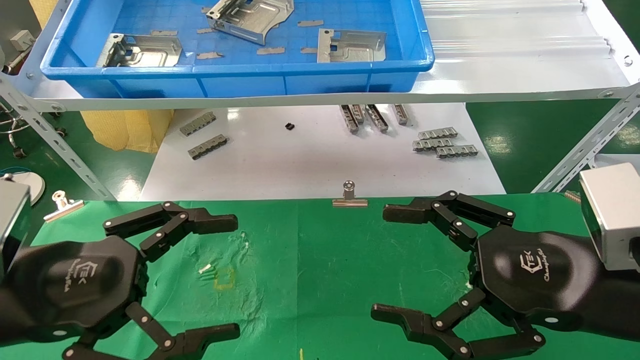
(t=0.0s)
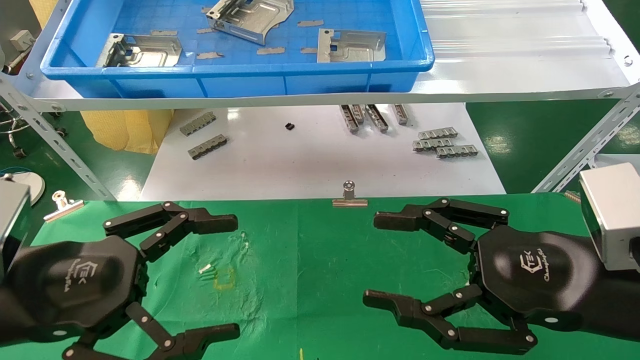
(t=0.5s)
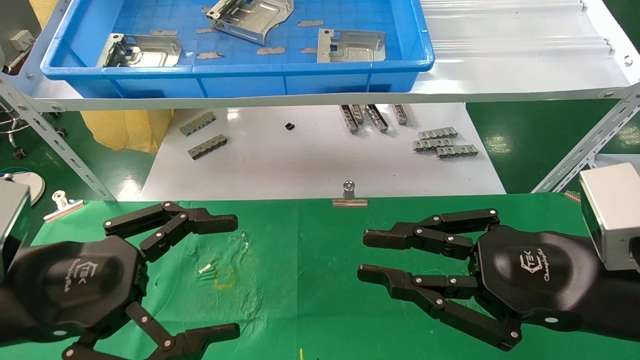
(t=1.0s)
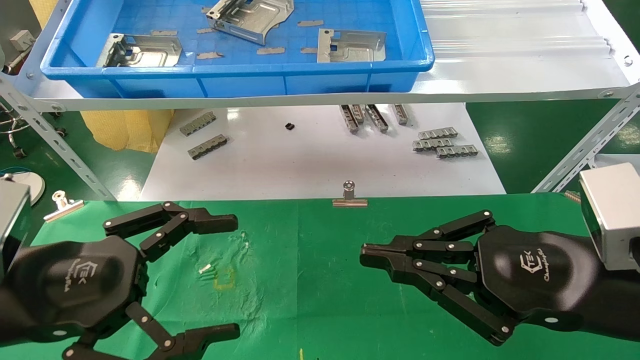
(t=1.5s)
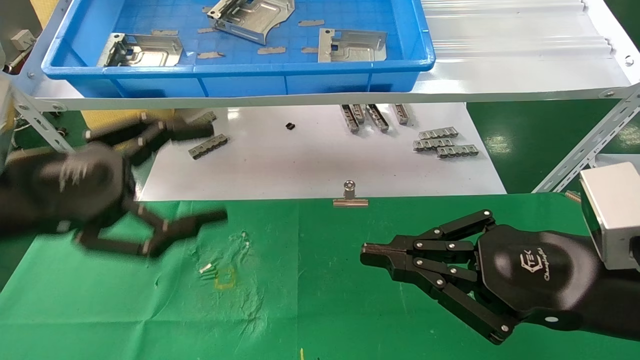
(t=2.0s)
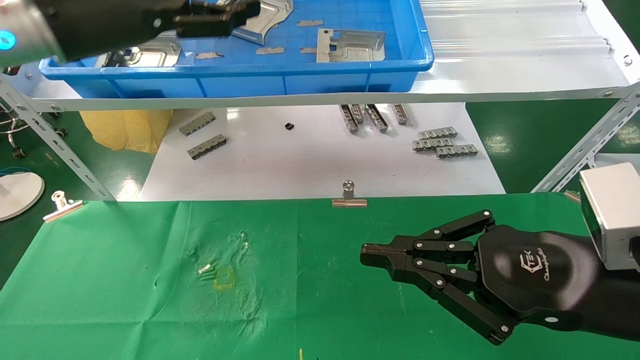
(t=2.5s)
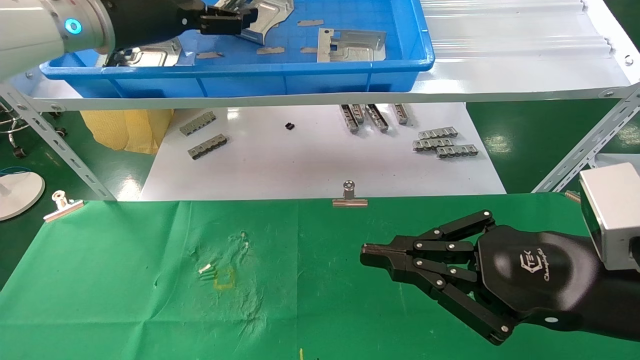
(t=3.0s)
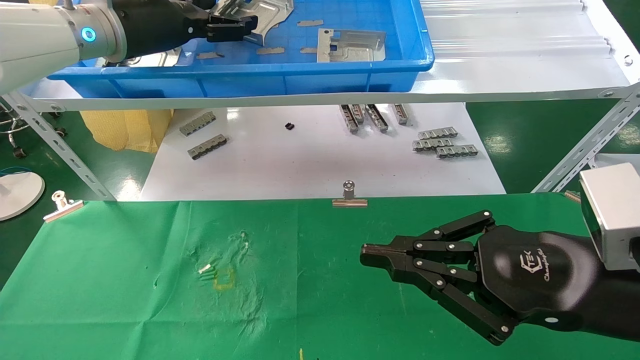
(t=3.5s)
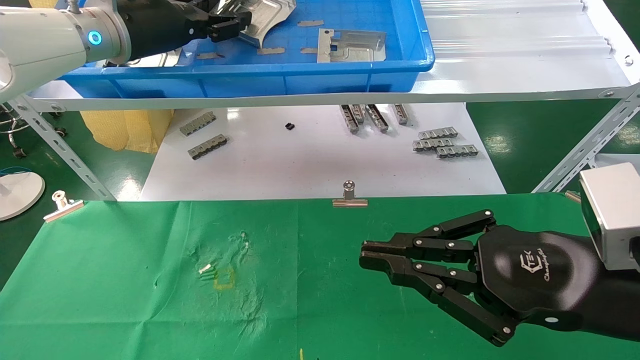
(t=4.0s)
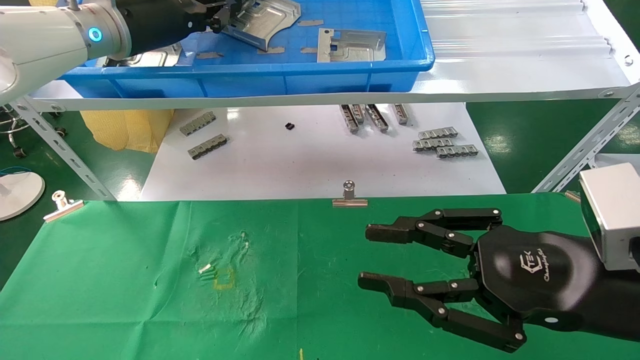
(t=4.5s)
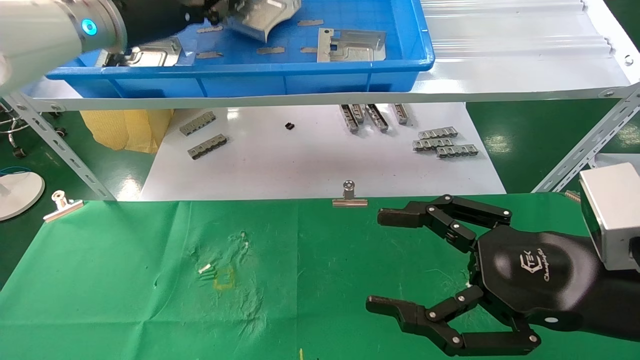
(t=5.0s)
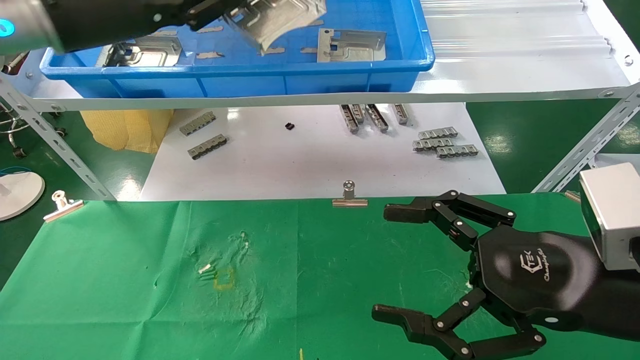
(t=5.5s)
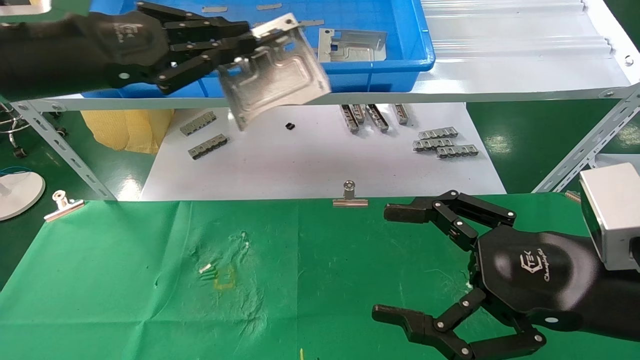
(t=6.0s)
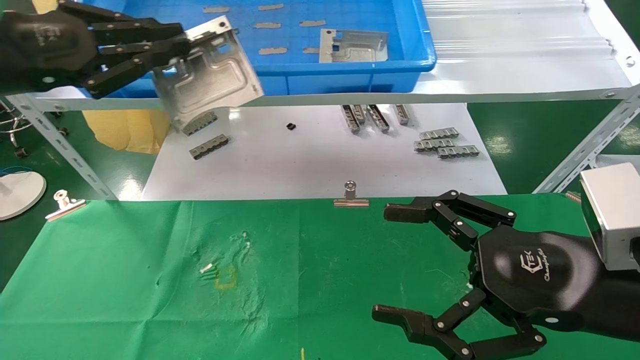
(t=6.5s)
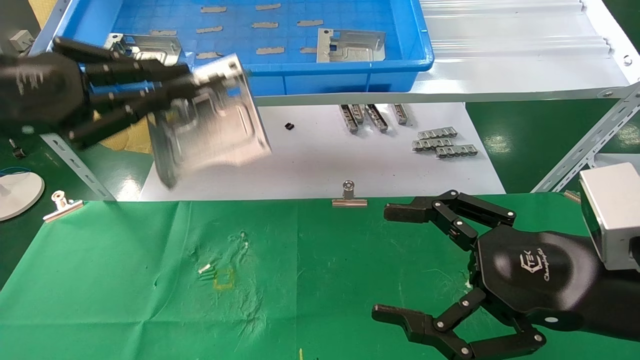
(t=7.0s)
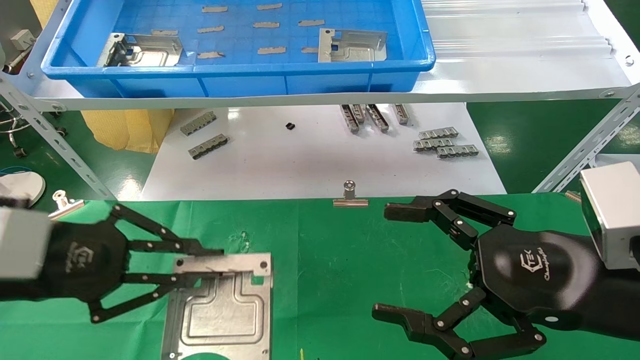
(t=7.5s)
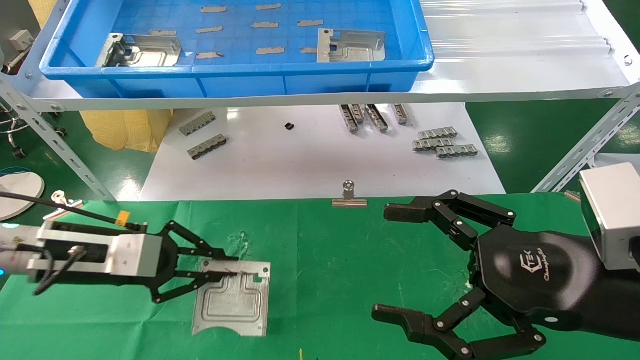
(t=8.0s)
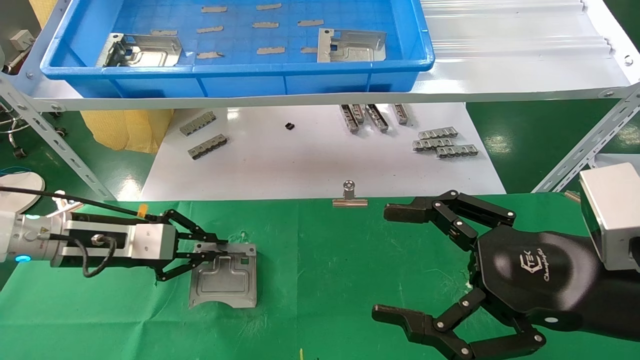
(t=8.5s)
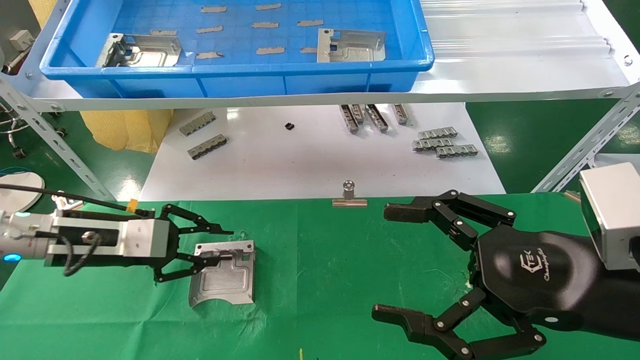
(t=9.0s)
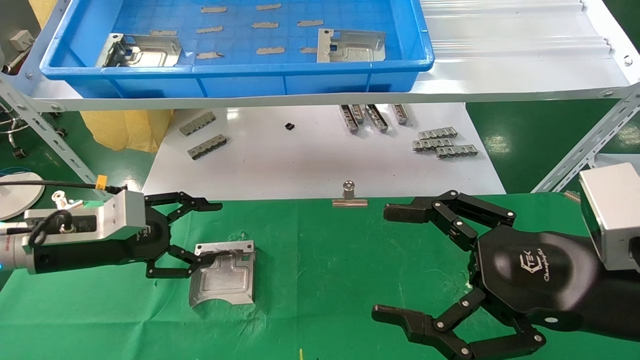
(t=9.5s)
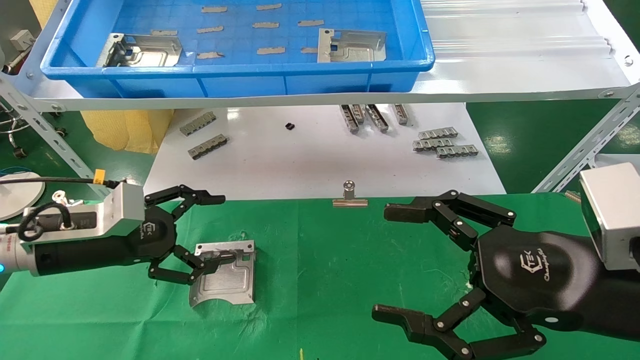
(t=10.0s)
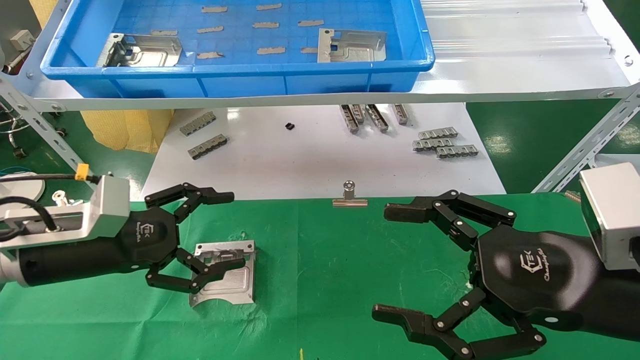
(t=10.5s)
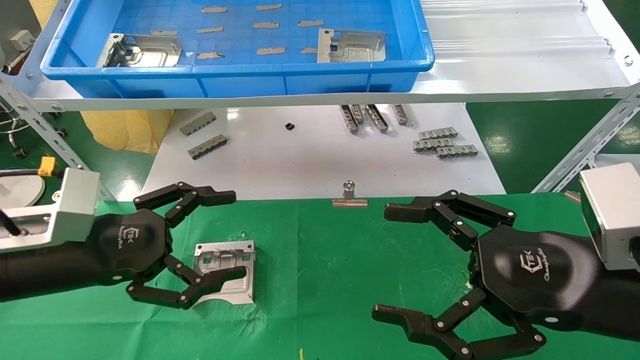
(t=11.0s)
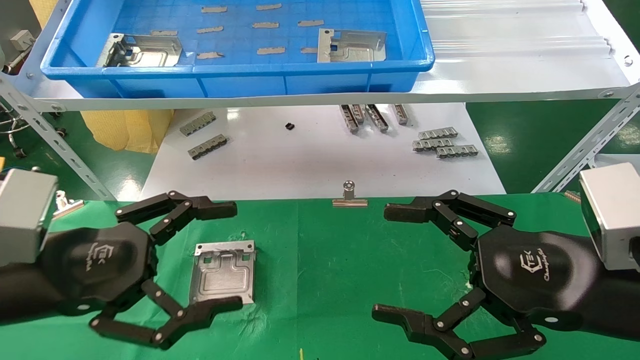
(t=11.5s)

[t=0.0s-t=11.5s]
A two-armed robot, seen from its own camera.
Task of the whole recording: use the mechanical arm to pick up the parts and place them on the table.
Step, t=2.0s to t=4.5s: Pick up the hard drive bracket from the feeding area.
Step, t=5.0s to t=8.5s: Place the hard drive bracket into the box.
t=0.0s to t=2.0s: The left gripper is displaced upward and forward by approximately 10 cm. Meanwhile the right gripper closes.
t=2.0s to t=4.0s: The left gripper travels forward and upward by approximately 25 cm, and closes.
t=4.0s to t=6.0s: The right gripper opens its fingers. Meanwhile the left gripper heads backward, covering some 10 cm, and closes.
t=6.0s to t=7.5s: The left gripper is displaced downward and backward by roughly 15 cm.
t=7.5s to t=9.5s: The left gripper heads forward and downward, covering some 10 cm, and opens its fingers.
t=9.5s to t=11.5s: The left gripper heads backward, covering some 15 cm, and opens up.
